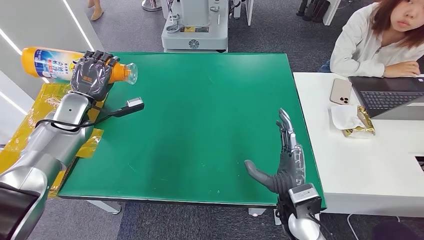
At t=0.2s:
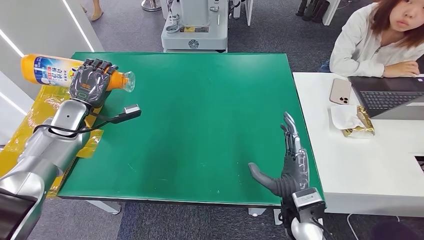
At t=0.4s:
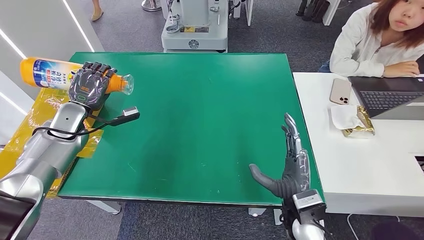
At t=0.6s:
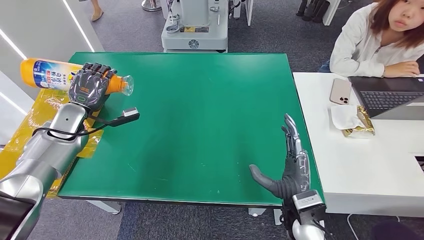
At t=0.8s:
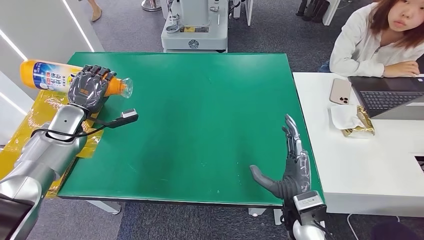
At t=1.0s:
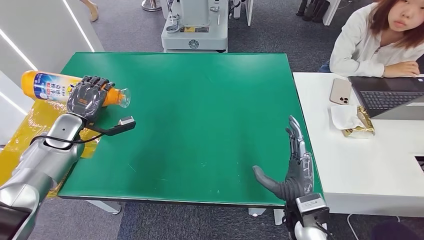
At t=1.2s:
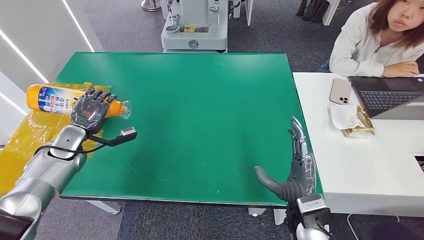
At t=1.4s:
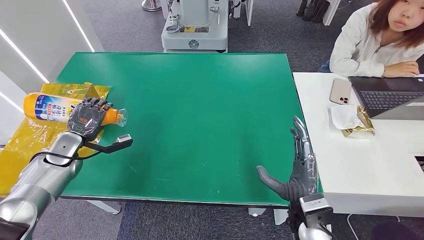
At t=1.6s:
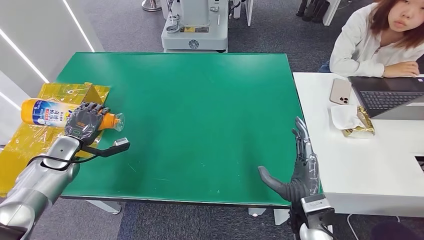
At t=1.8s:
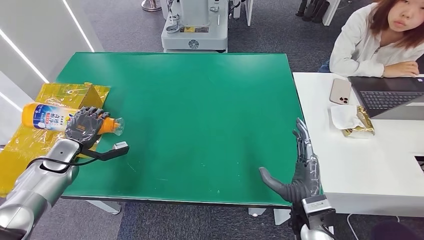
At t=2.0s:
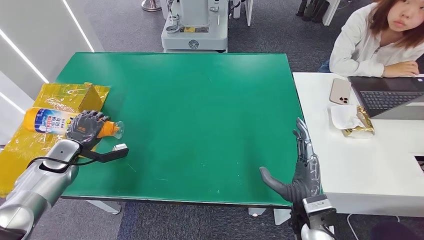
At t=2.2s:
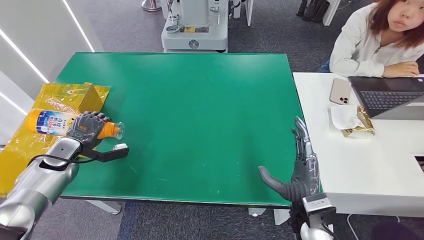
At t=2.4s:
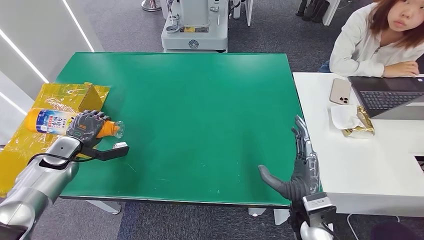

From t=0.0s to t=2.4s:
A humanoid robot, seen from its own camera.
Step, from t=0.0s to t=2.4s: Turn the bottle to the front side.
From t=0.0s to t=1.2s: The left hand goes roughly 10 cm downward and backward.
From t=1.2s to t=2.4s: The hands move only a little.
